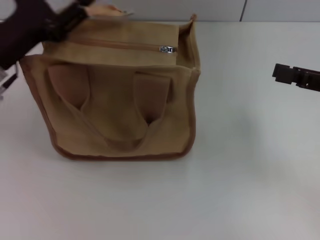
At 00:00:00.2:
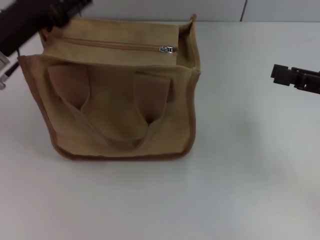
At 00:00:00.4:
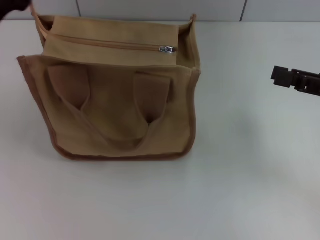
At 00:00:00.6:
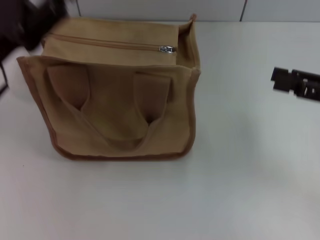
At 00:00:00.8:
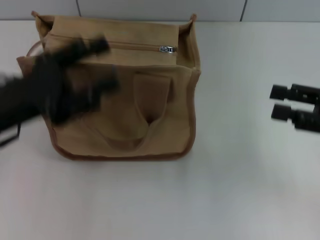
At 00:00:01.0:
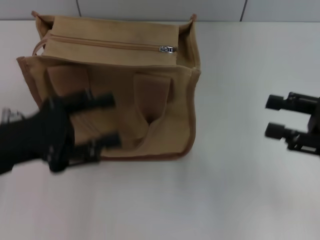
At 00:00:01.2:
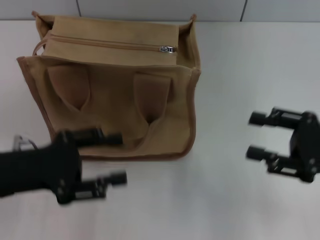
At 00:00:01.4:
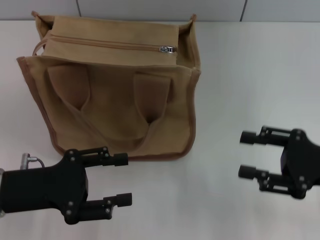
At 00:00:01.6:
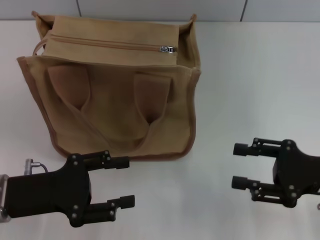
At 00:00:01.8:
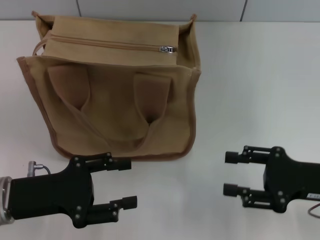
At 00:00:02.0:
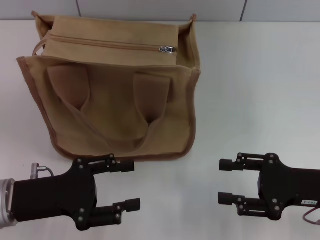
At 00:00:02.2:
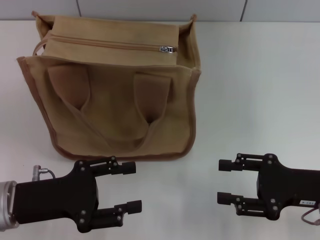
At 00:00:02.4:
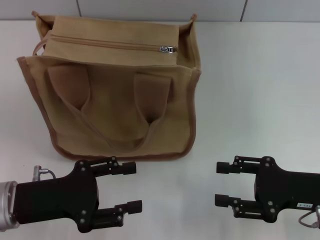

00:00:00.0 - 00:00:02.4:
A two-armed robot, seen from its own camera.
00:00:00.0 - 00:00:01.2: The right gripper goes approximately 5 cm backward. The left gripper goes approximately 10 cm backward.
00:00:01.2 - 00:00:02.4: The right gripper shifts by some 5 cm.

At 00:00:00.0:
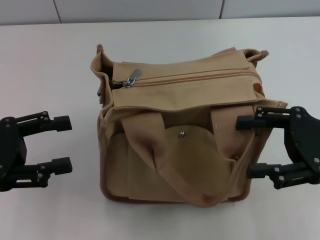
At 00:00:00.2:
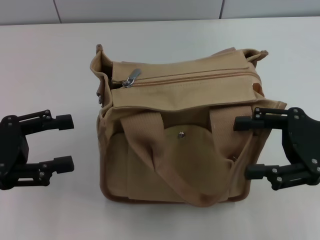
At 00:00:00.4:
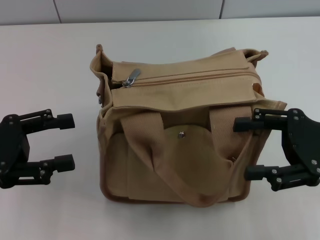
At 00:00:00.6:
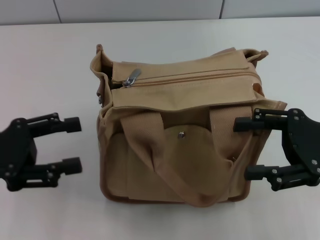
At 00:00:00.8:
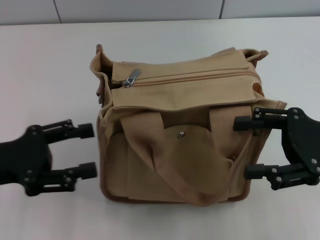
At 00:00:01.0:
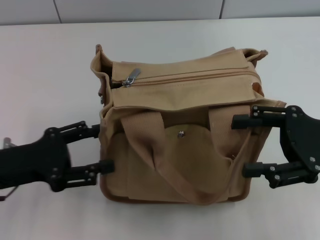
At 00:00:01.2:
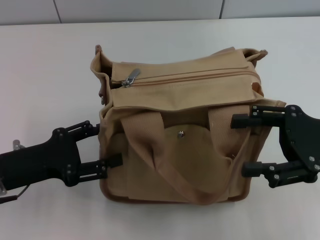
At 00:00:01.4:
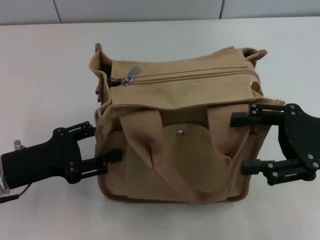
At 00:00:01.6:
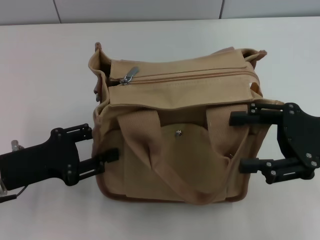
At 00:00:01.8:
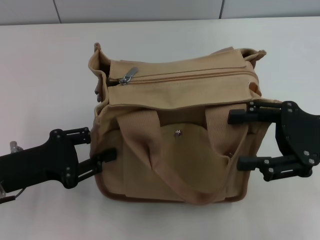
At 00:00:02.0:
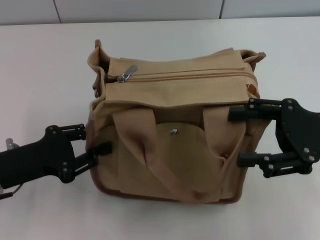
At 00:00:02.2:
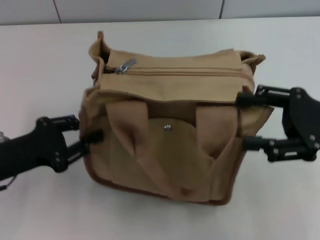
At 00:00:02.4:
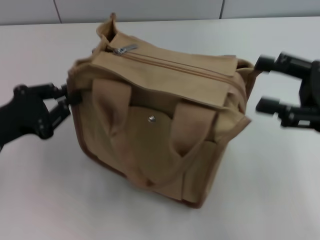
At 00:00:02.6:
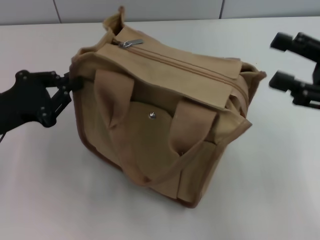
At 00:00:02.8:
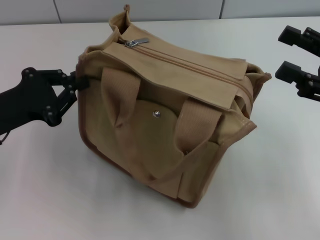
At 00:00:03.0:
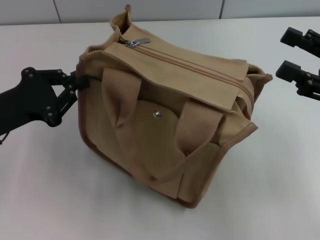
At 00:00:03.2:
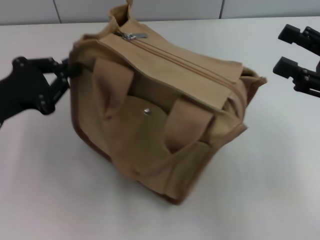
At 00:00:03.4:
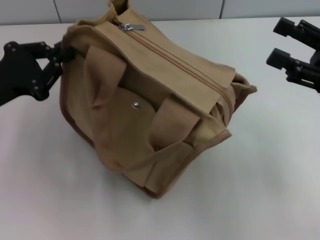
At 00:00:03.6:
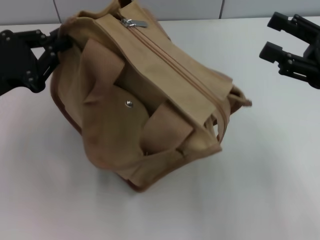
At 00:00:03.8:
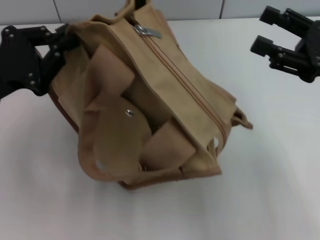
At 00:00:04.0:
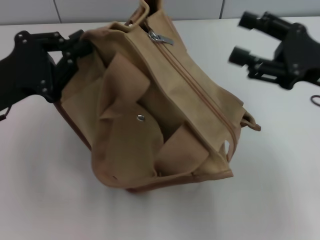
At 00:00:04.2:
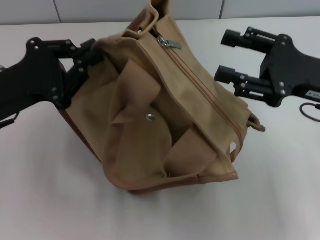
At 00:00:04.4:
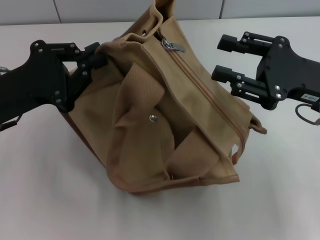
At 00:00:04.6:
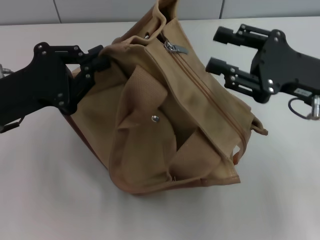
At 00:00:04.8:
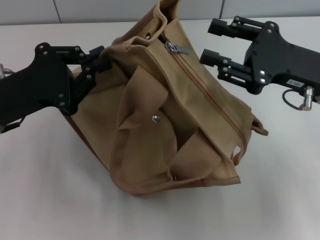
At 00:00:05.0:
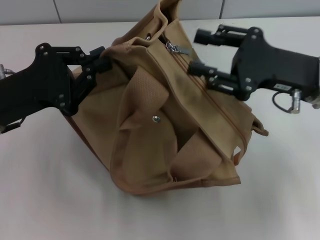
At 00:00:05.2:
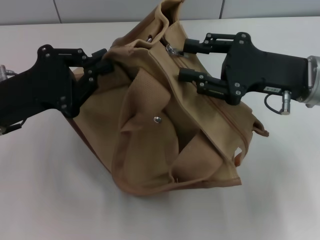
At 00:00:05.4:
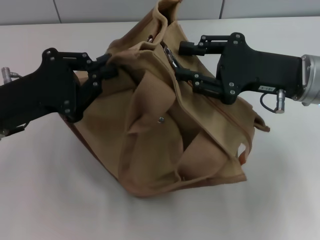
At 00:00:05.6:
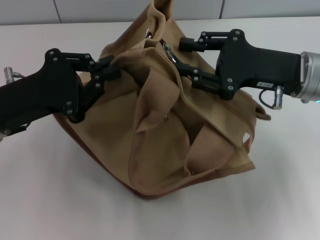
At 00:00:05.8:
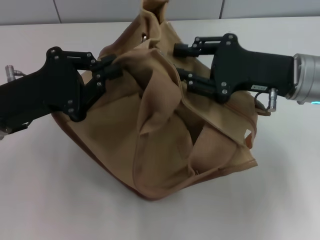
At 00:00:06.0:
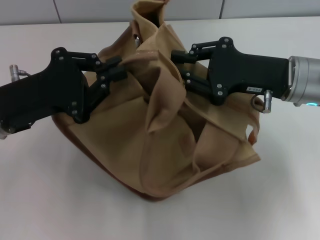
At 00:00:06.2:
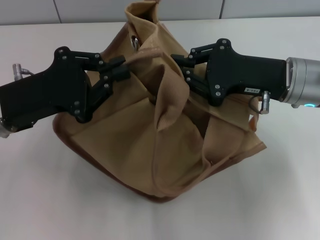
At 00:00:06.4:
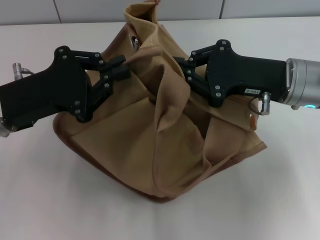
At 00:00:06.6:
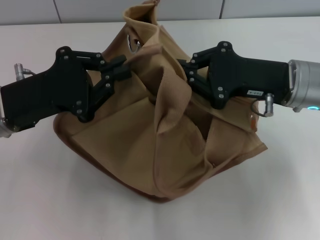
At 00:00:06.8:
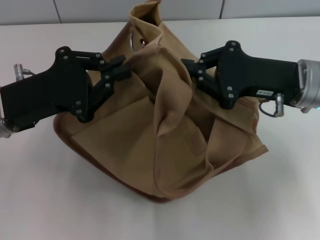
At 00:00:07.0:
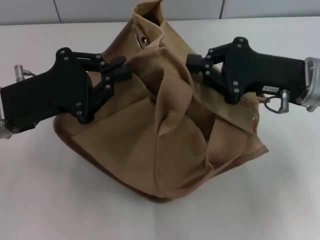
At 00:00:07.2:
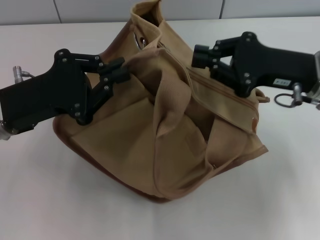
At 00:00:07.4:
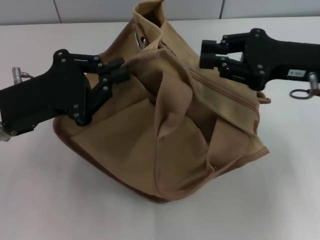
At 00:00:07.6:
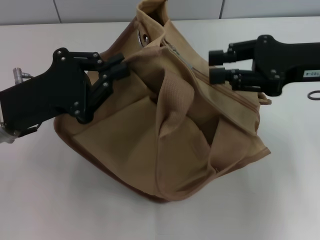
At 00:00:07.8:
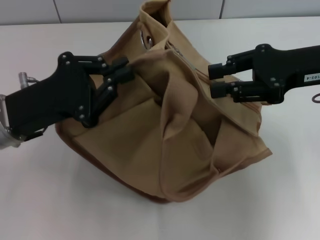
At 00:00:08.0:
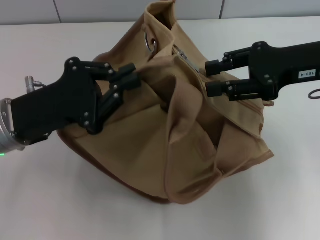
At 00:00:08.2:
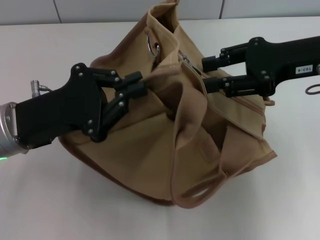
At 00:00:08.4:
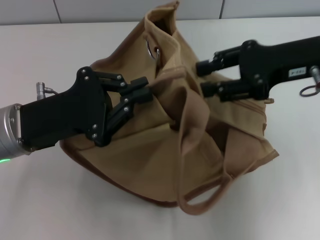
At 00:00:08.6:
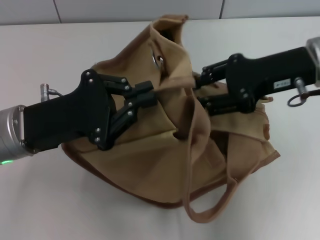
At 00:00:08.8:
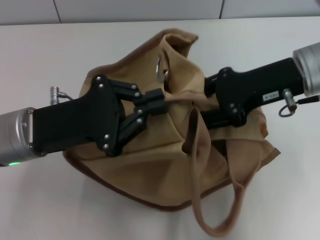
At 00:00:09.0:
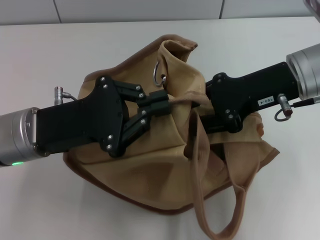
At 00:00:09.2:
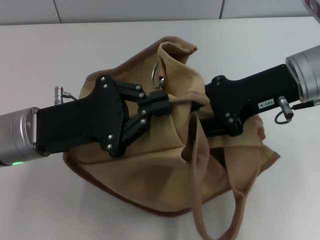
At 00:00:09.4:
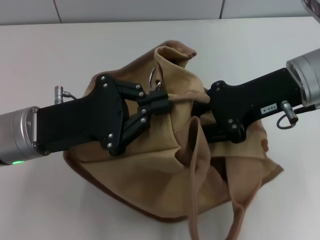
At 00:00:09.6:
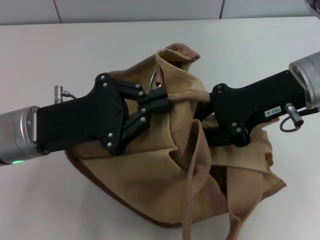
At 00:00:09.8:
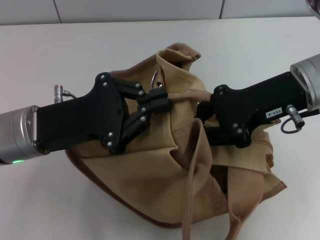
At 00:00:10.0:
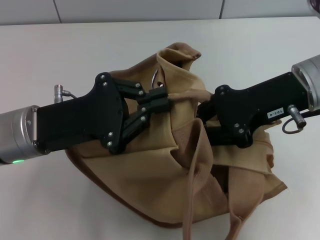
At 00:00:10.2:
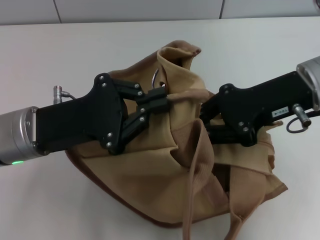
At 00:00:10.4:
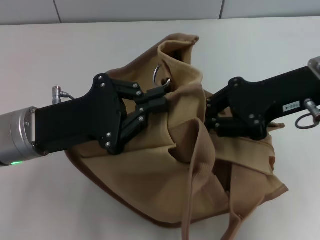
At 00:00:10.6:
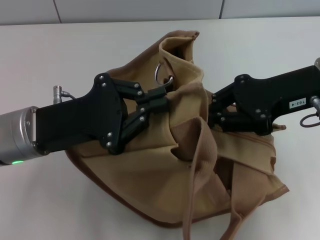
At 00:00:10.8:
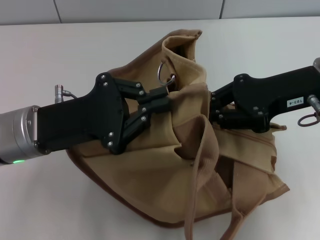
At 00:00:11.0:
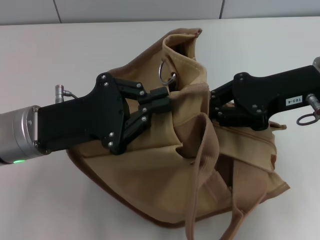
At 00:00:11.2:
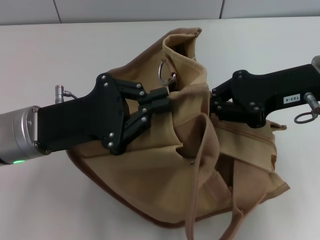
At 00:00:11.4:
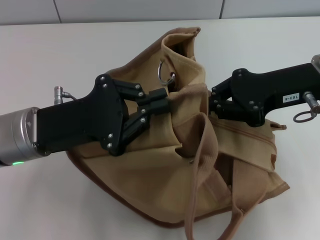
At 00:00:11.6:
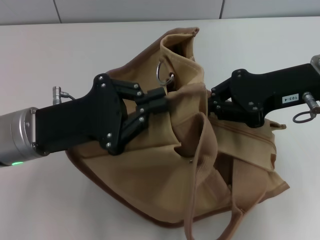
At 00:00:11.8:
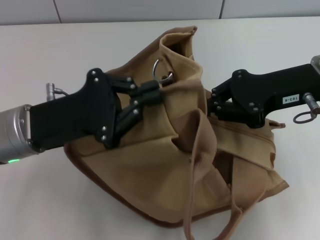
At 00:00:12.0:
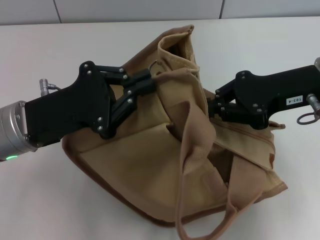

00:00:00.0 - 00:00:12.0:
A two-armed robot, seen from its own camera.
00:00:00.0 - 00:00:01.6: The left gripper goes roughly 5 cm downward.
00:00:01.6 - 00:00:03.0: The left gripper changes place by roughly 5 cm, and closes its fingers.
00:00:03.0 - 00:00:04.4: The right gripper heads to the left, covering roughly 5 cm.
00:00:04.4 - 00:00:06.0: The right gripper ends up some 5 cm from where it was.
00:00:06.0 - 00:00:07.6: The right gripper moves upward, roughly 5 cm.
00:00:07.6 - 00:00:09.0: The right gripper goes roughly 5 cm to the left.
00:00:09.0 - 00:00:10.4: The right gripper closes.

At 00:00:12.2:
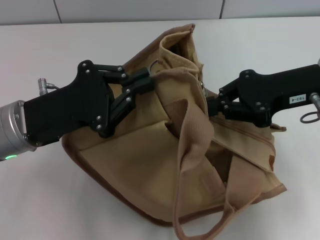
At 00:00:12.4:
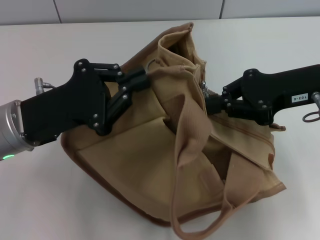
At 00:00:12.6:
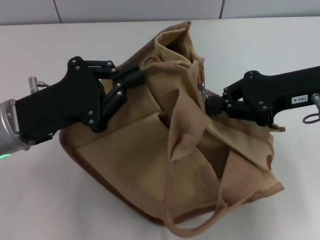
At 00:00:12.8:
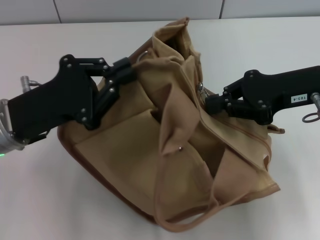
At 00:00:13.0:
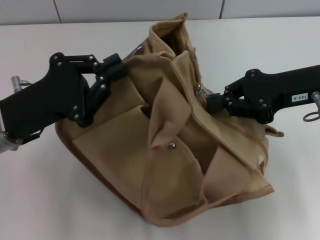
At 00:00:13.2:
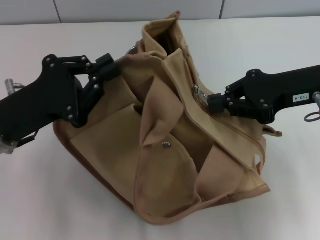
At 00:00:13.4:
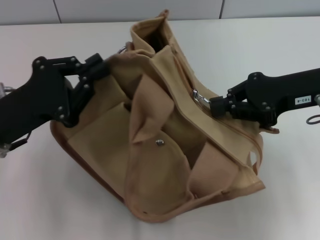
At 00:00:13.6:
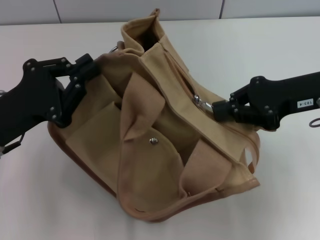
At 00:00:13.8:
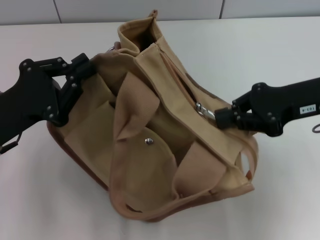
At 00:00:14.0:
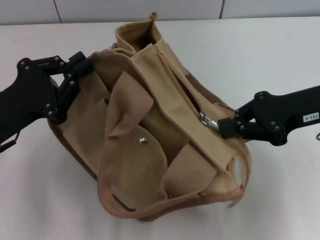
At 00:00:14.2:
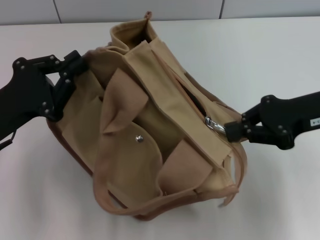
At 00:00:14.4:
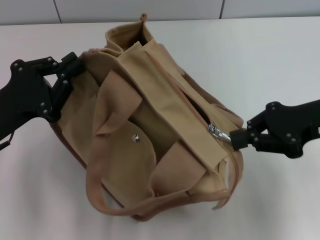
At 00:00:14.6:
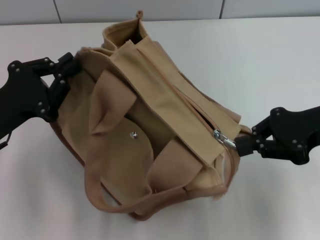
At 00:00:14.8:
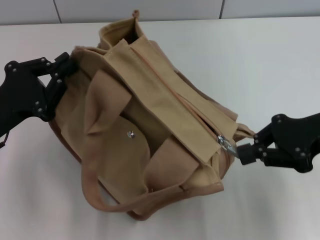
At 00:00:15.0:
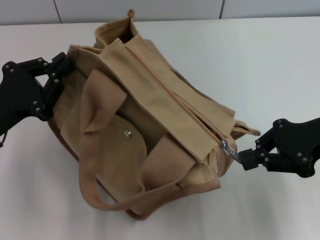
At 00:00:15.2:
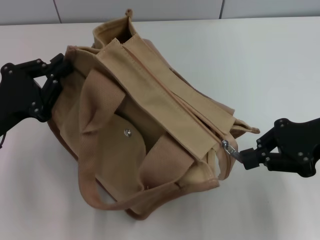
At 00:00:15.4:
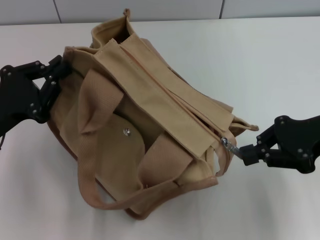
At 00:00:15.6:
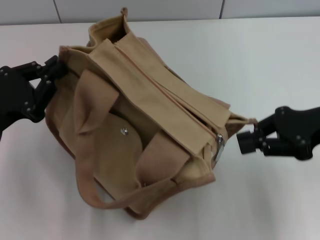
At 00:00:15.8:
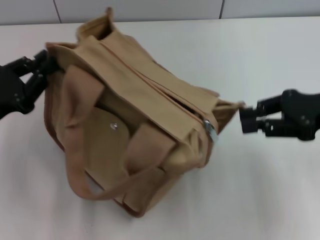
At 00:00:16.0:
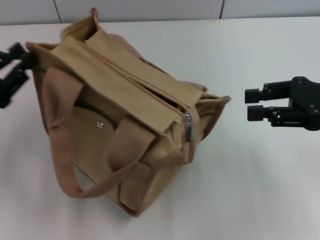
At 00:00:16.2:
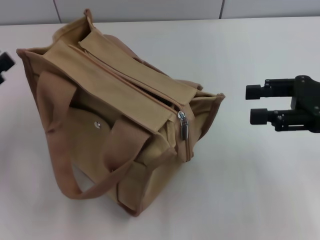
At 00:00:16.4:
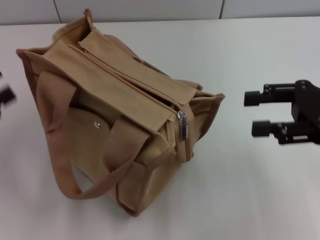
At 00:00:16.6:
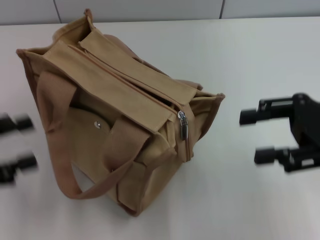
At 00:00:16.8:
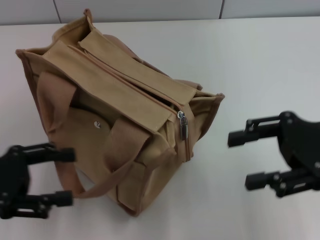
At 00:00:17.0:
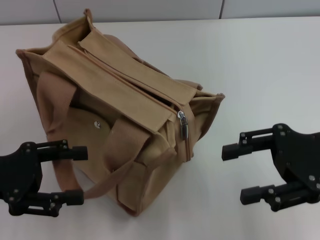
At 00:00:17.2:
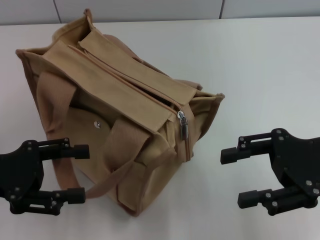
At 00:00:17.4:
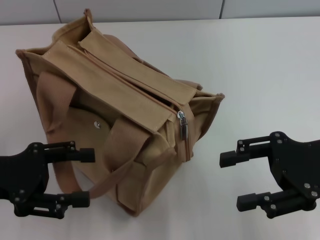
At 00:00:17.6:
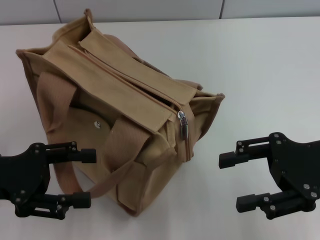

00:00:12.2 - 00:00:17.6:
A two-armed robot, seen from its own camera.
Step, 00:00:12.2 - 00:00:15.6: Pull open the zipper with your right hand.
Step, 00:00:15.8 - 00:00:16.0: Grab the bag with your left hand.
00:00:12.2 - 00:00:13.6: The left gripper ends up approximately 5 cm from where it was.
00:00:15.0 - 00:00:16.2: The right gripper opens up; the left gripper heads to the left, covering approximately 5 cm, and opens.
00:00:16.2 - 00:00:17.6: The right gripper changes place by roughly 5 cm. Meanwhile the left gripper is displaced to the right by approximately 5 cm, and opens its fingers.
